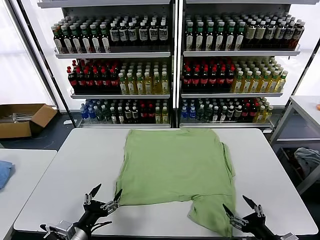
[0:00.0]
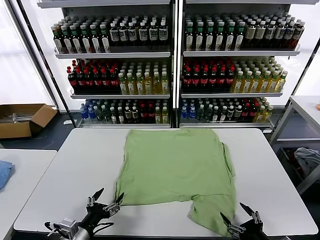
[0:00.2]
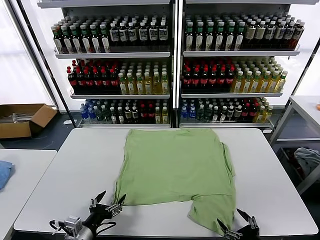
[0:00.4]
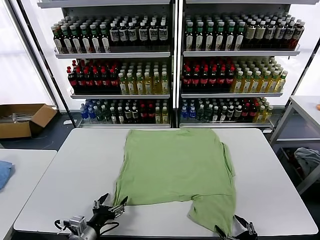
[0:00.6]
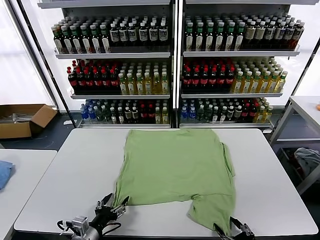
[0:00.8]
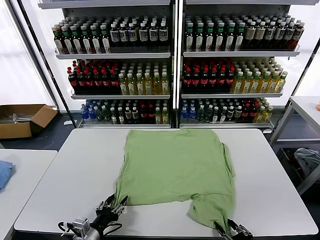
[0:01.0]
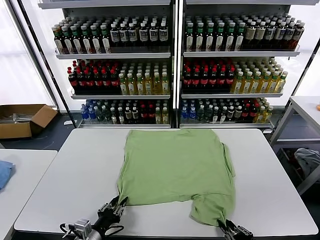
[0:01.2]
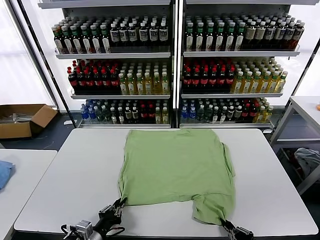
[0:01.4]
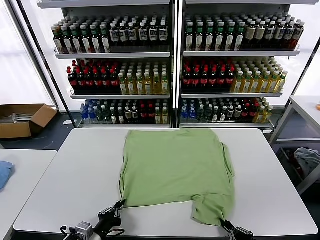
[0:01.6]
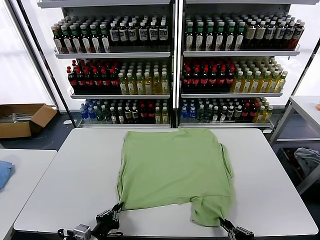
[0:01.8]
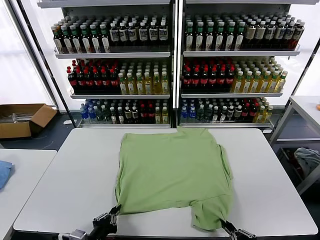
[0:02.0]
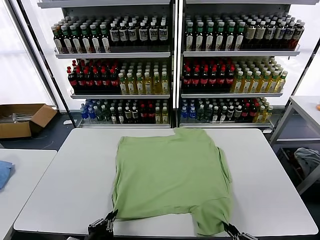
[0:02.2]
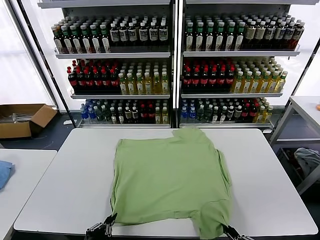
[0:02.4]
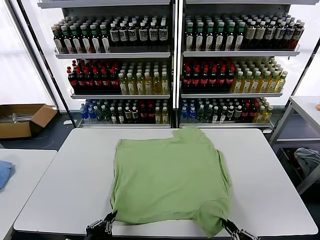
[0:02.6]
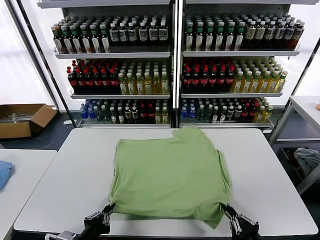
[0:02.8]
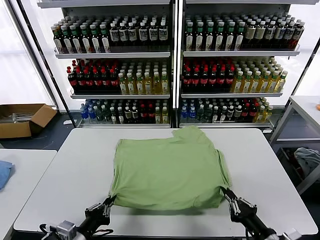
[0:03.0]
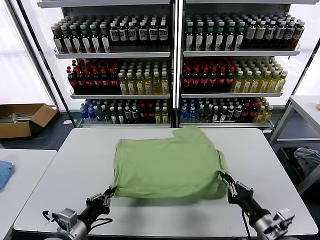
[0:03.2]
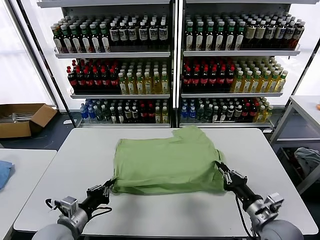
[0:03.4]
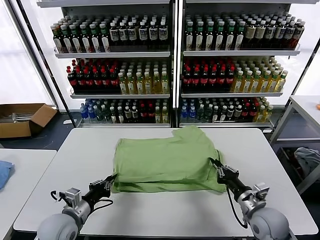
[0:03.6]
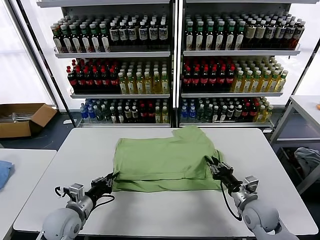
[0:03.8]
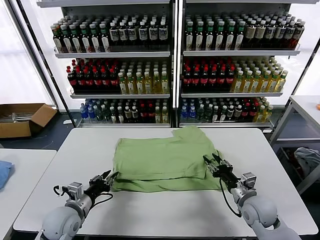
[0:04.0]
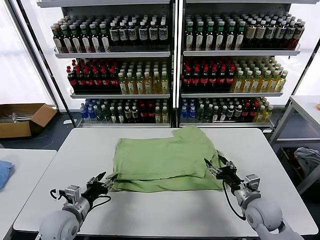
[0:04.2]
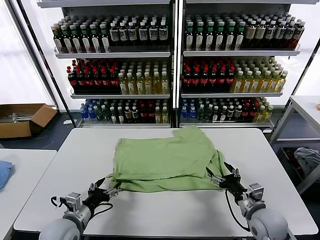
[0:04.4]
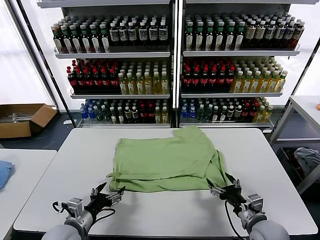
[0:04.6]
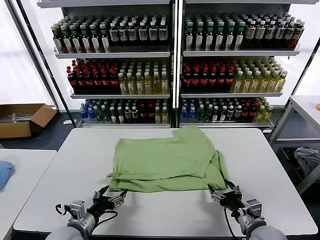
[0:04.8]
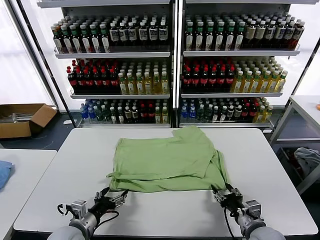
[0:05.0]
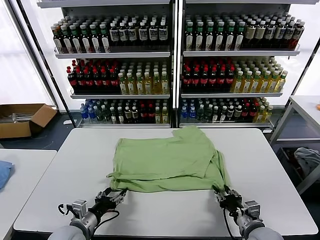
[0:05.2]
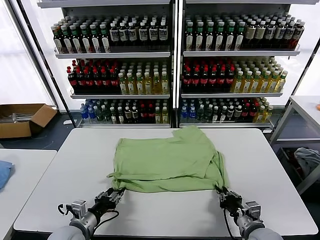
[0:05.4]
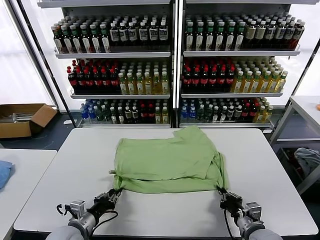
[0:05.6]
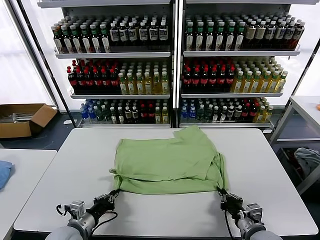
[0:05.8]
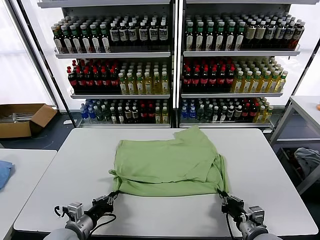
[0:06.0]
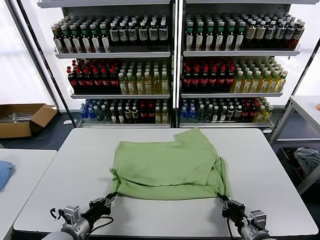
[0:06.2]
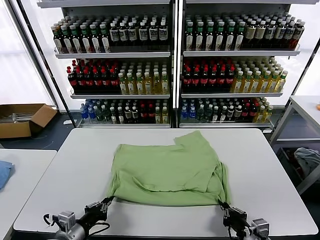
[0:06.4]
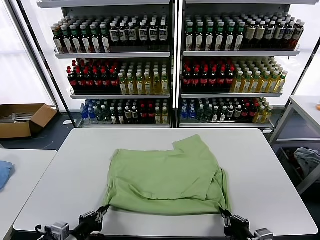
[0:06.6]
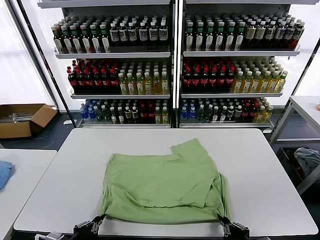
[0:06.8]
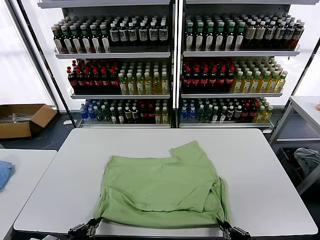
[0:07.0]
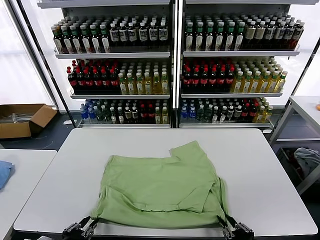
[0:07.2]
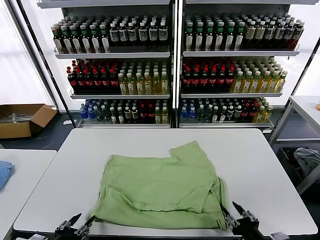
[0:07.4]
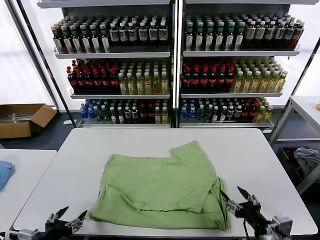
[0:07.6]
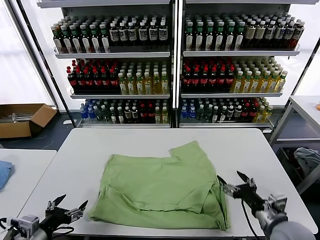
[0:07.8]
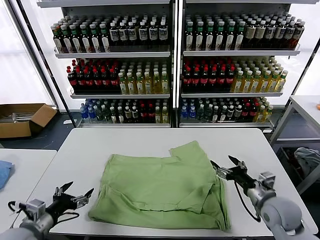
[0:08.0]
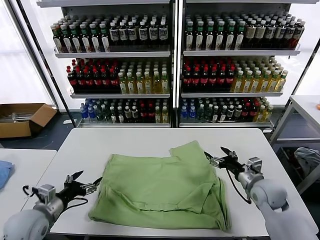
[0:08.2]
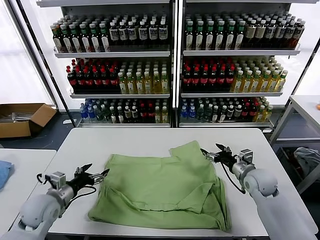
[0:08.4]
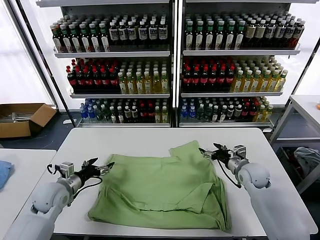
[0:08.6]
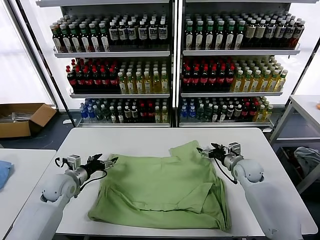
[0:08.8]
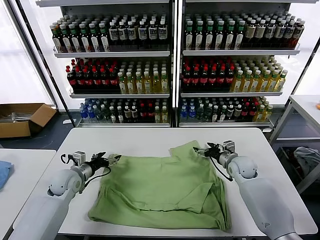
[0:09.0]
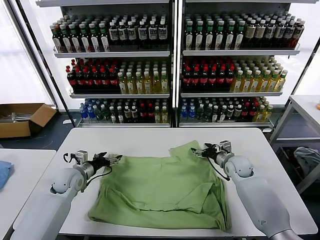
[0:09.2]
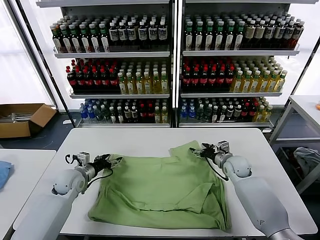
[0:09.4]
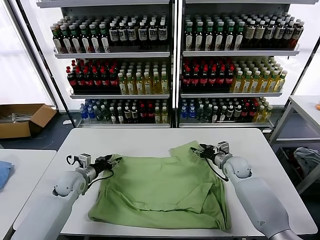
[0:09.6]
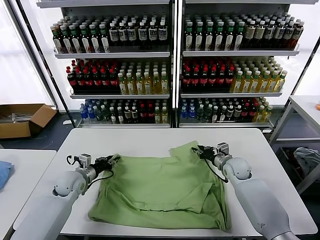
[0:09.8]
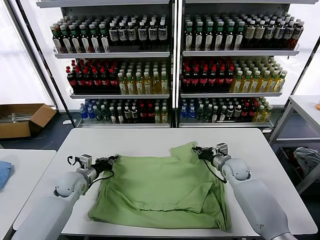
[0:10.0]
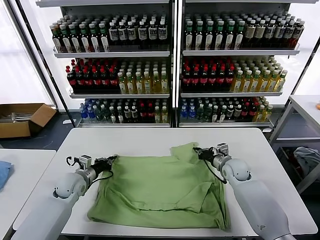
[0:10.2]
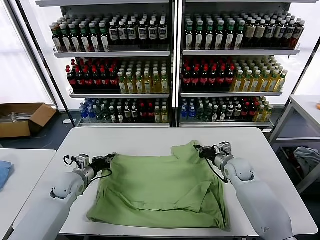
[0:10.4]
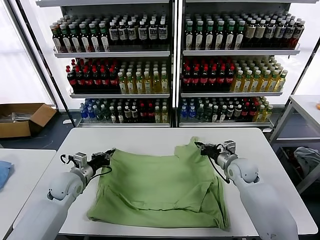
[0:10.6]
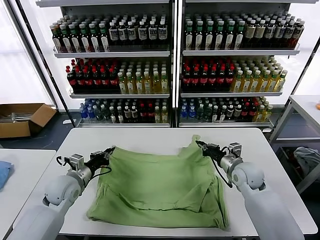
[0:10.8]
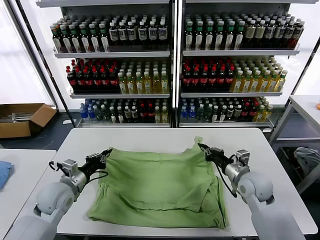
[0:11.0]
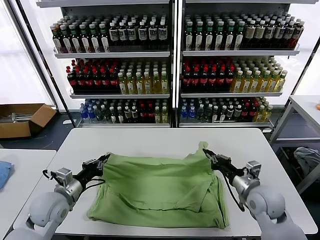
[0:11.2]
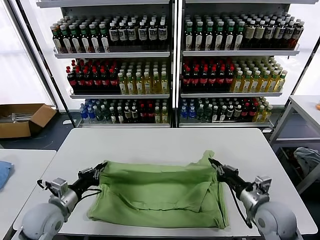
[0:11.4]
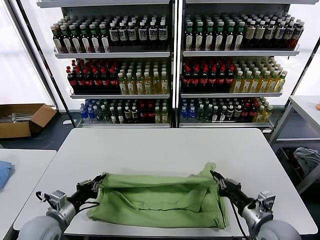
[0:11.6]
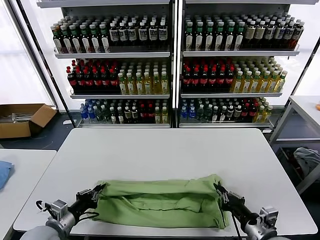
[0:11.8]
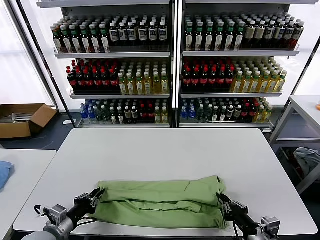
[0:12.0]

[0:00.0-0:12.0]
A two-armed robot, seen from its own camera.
Task of the whole recording: fold and organize the clothes.
Step, 0:00.0 to 0:01.4: use both grippers simultaneously to clamp the lower edge of the clothing fabric.
Step, 0:01.8 to 0:04.0: use both grippers to drag the lower edge of the fabric forward and fold it over the upper edge.
Step, 0:04.2 to 0:07.2: Drag the clothes downward with both gripper.
Step, 0:07.6 to 0:10.0: use both grippers simultaneously to clamp the upper edge of the clothing fabric.
0:01.6 to 0:03.0: The right gripper heads forward and upward, covering about 10 cm. Meanwhile the left gripper moves upward, about 5 cm.
0:03.0 to 0:04.4: The grippers both shift forward by about 10 cm. The right gripper opens up, while the left gripper opens.
0:04.4 to 0:06.0: The left gripper closes up. Meanwhile the right gripper shifts by some 5 cm, and closes.
0:06.0 to 0:07.6: The left gripper is displaced backward, to the left and upward by about 15 cm, and opens its fingers; the right gripper moves upward, approximately 5 cm, goes backward and returns, about 10 cm each way, and opens.
0:07.6 to 0:09.0: Both grippers move forward, approximately 30 cm.
0:09.0 to 0:10.4: The right gripper closes. Meanwhile the left gripper closes.
0:10.4 to 0:12.0: The right gripper moves backward, roughly 30 cm, while the left gripper heads backward, covering roughly 20 cm.

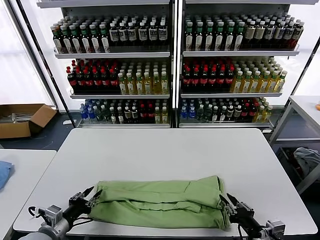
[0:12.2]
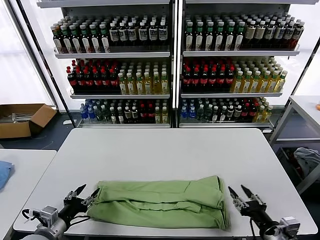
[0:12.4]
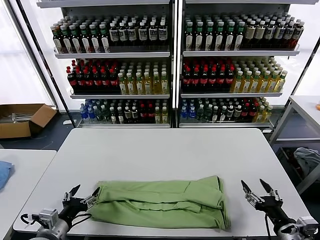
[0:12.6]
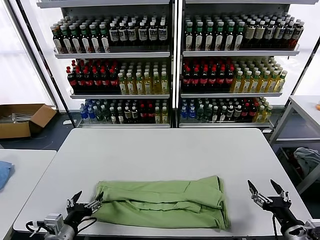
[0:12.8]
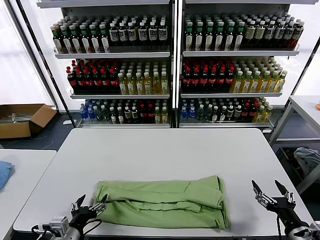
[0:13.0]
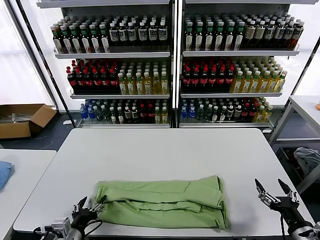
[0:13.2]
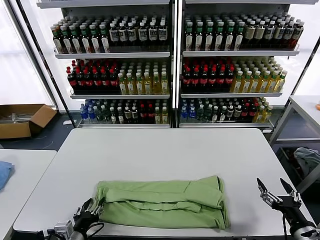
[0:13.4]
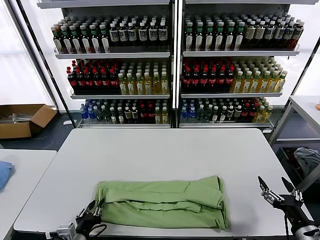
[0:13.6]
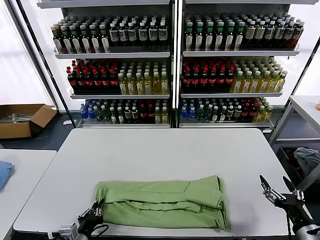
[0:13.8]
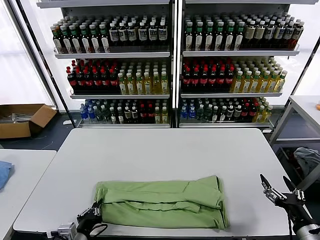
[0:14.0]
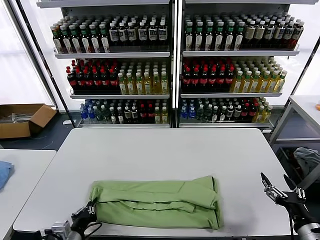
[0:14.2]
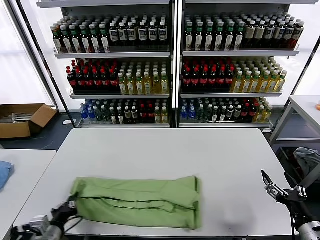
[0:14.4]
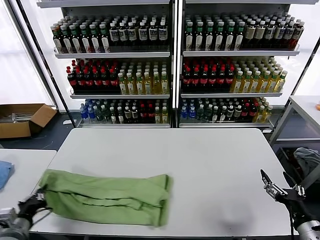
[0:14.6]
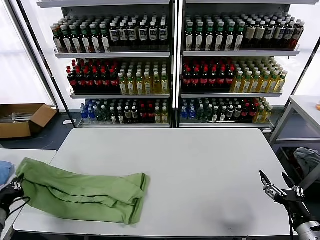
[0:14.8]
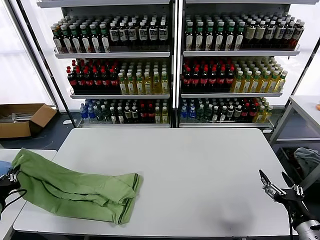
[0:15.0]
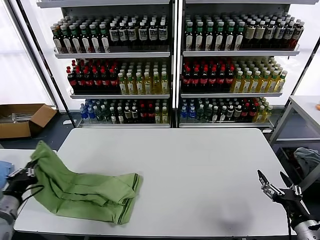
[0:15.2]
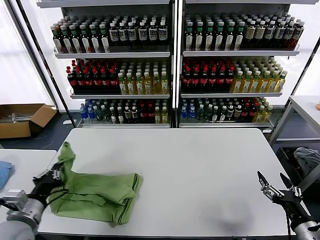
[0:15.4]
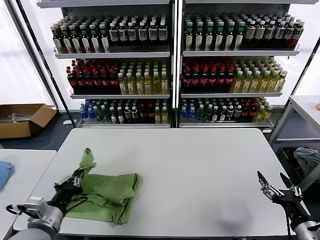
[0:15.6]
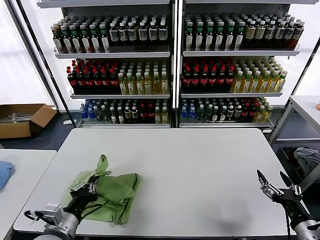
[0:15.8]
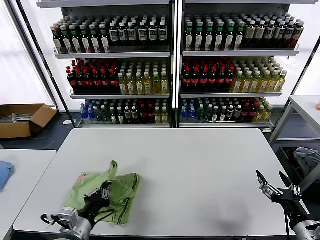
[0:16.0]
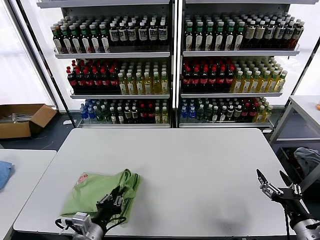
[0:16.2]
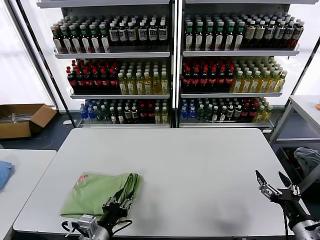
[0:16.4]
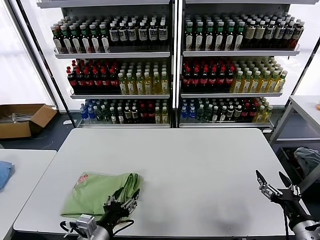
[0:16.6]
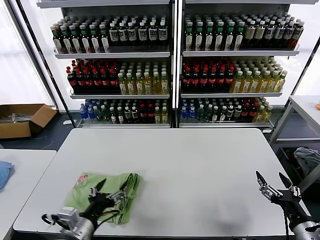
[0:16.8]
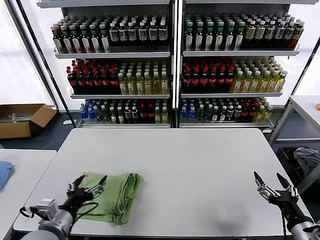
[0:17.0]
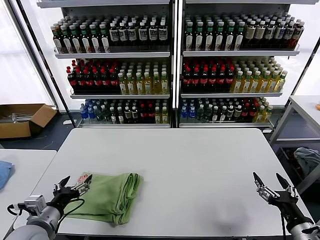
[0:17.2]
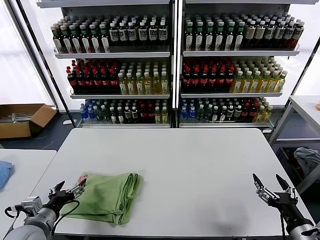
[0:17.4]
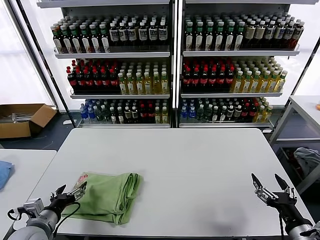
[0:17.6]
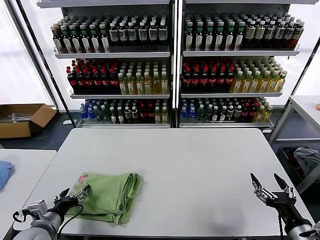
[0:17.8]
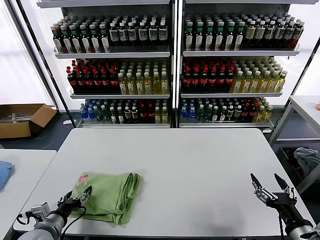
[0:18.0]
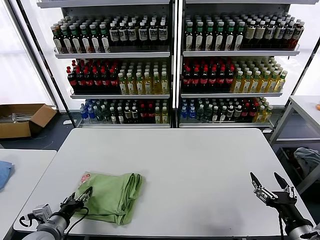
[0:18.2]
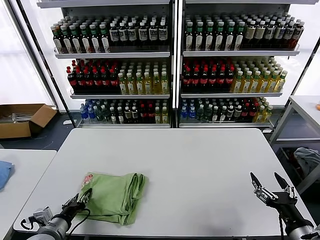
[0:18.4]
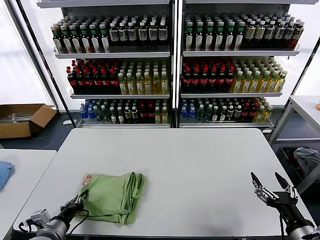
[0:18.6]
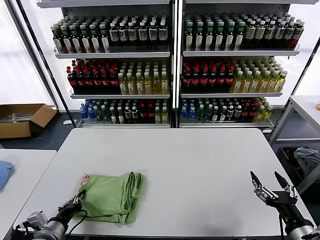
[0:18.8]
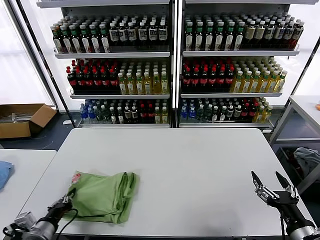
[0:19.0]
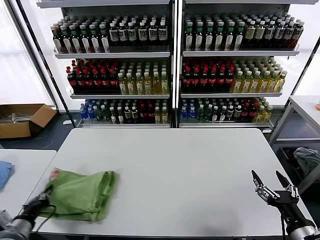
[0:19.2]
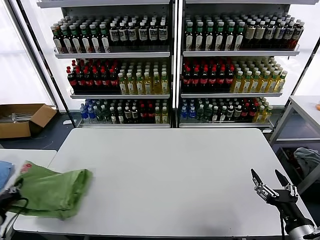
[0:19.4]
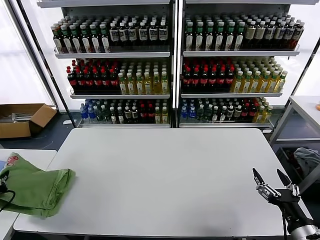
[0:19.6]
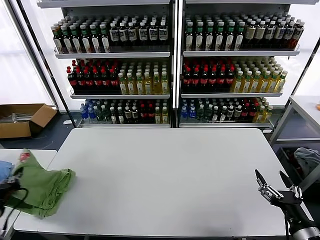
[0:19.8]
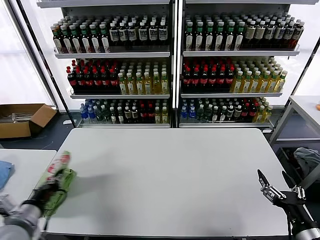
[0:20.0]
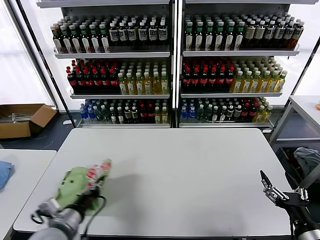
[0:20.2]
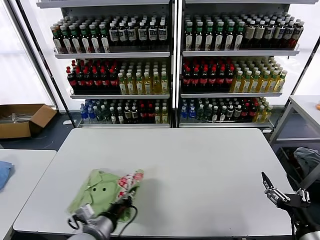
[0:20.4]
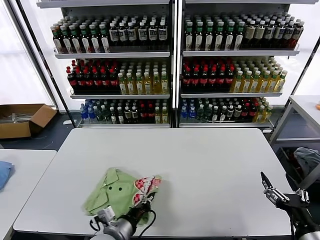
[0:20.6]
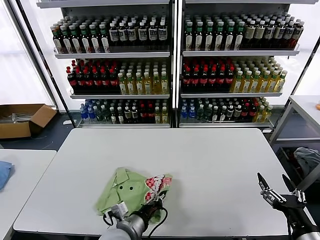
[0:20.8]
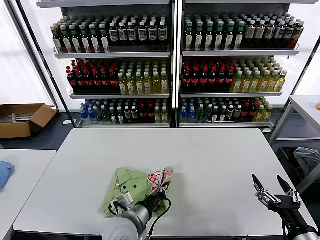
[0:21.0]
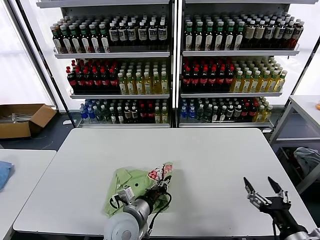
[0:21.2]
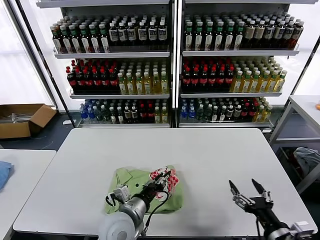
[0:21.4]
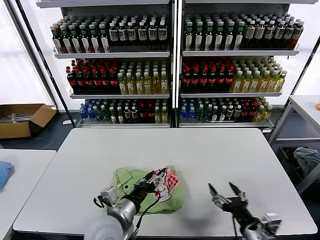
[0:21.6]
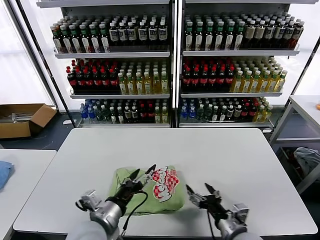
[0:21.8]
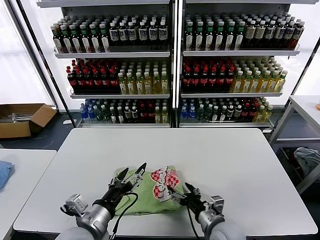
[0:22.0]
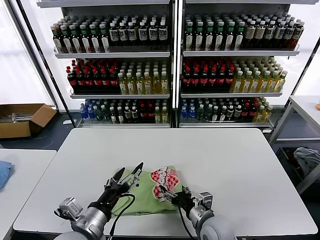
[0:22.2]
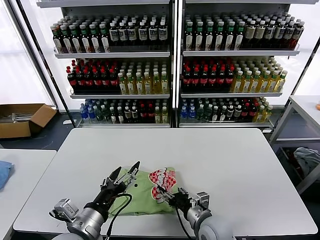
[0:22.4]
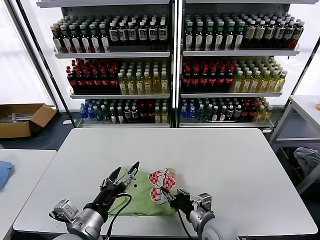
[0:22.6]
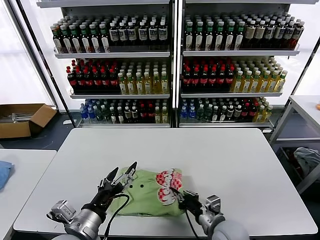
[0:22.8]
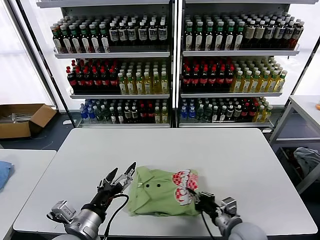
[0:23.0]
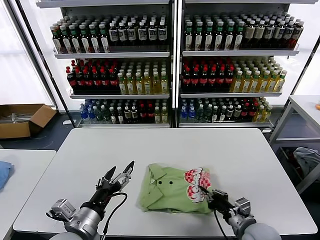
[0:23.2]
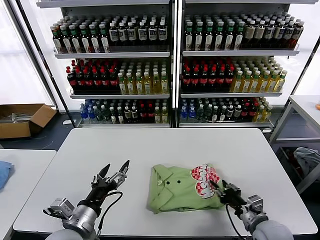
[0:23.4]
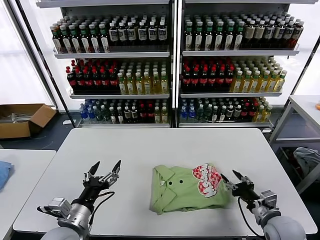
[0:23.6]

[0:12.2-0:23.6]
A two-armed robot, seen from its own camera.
Task of the whole recording: fold and organize the clothes.
Step, 0:12.4 to 0:13.8: use the left gripper to clamp the left edge of the fabric.
Step, 0:14.0 to 0:16.6: use the left gripper to drag the left edge of the fabric to the left and folds it over the right edge.
Step, 0:16.8 to 0:21.4: Flip the folded clothes over with left gripper.
0:12.2 to 0:13.6: The two grippers go some 10 cm to the right. The left gripper opens, then closes once more; the right gripper opens up.
0:13.6 to 0:15.0: The left gripper travels to the left and upward by roughly 25 cm, and closes up.
0:15.0 to 0:16.4: The left gripper shifts approximately 25 cm to the right, and opens.
0:16.4 to 0:17.8: The left gripper goes roughly 15 cm to the left, and opens up.
0:17.8 to 0:19.4: The left gripper travels to the left by roughly 10 cm, and closes.
0:19.4 to 0:20.8: The left gripper moves to the right, approximately 35 cm.
0:20.8 to 0:22.2: The right gripper is displaced to the left, forward and downward by roughly 25 cm. Meanwhile the left gripper heads upward and to the left, covering roughly 10 cm, and opens its fingers.
0:22.2 to 0:23.6: The right gripper shifts approximately 20 cm to the right, and closes, then opens again; the left gripper moves some 5 cm.
